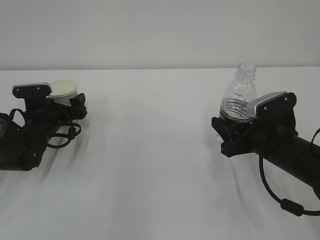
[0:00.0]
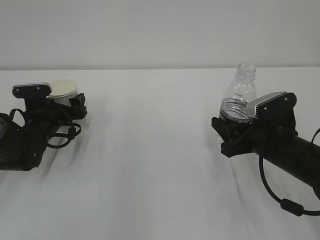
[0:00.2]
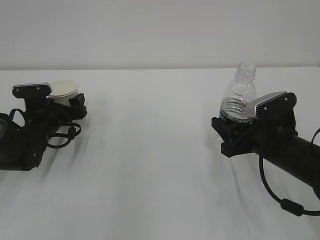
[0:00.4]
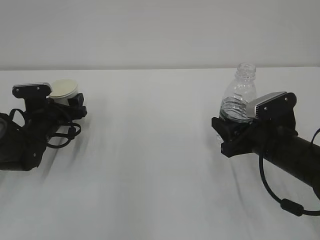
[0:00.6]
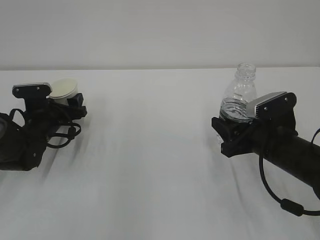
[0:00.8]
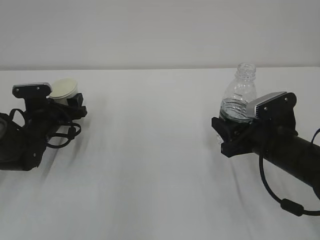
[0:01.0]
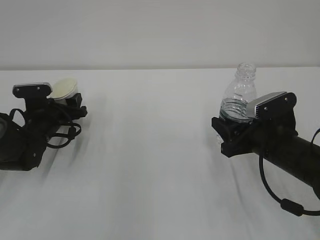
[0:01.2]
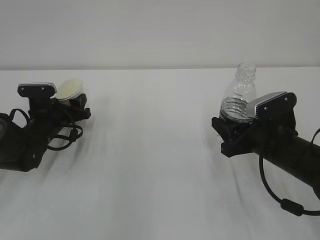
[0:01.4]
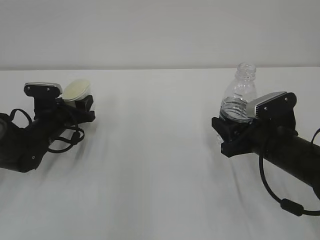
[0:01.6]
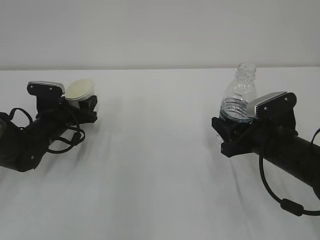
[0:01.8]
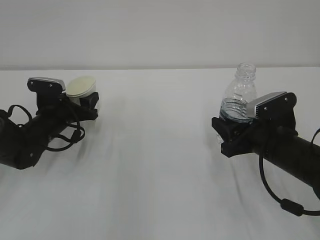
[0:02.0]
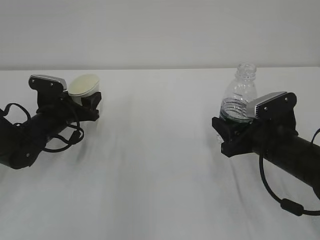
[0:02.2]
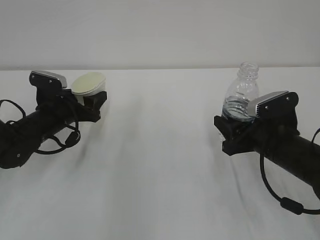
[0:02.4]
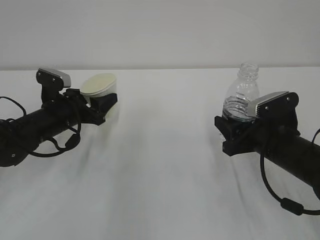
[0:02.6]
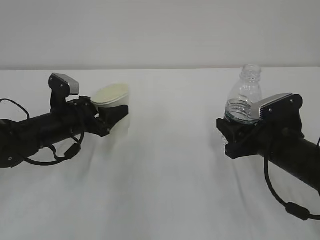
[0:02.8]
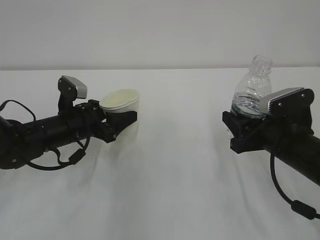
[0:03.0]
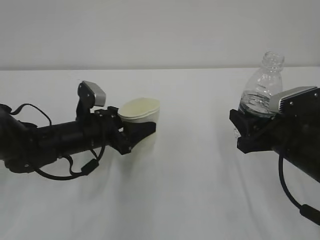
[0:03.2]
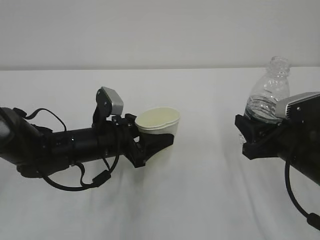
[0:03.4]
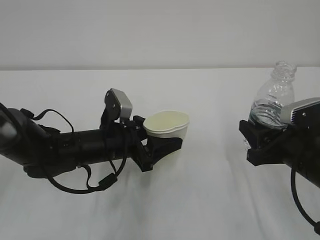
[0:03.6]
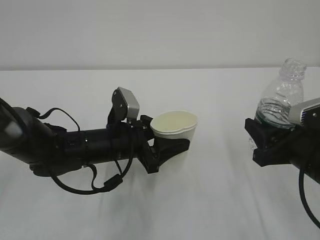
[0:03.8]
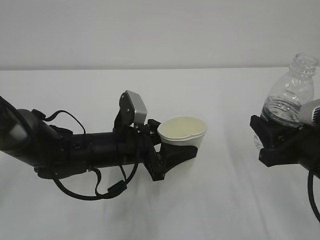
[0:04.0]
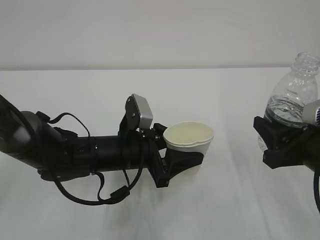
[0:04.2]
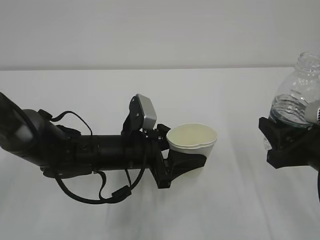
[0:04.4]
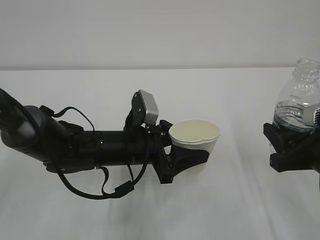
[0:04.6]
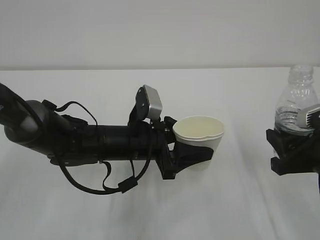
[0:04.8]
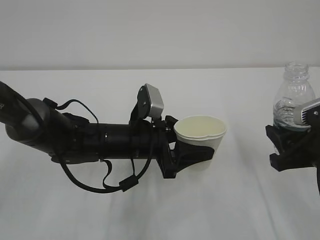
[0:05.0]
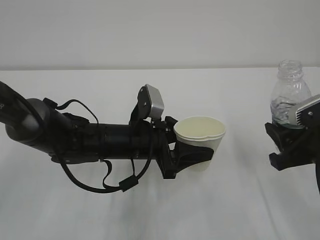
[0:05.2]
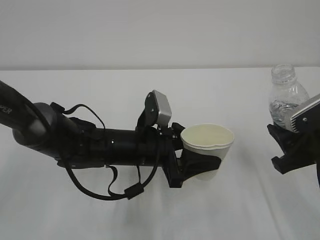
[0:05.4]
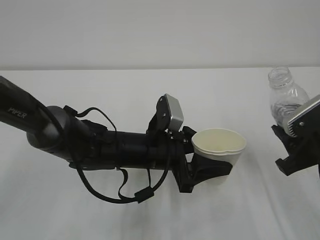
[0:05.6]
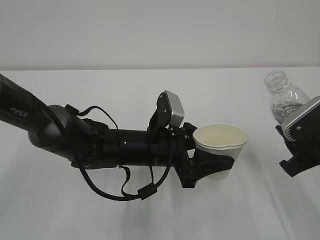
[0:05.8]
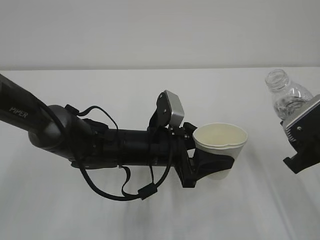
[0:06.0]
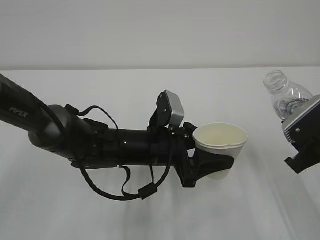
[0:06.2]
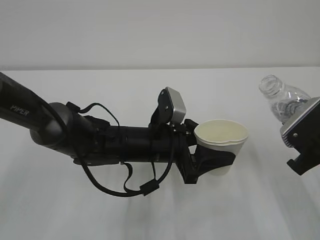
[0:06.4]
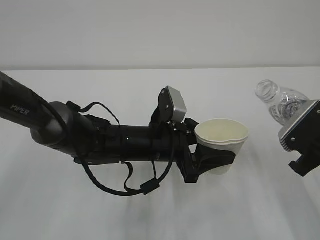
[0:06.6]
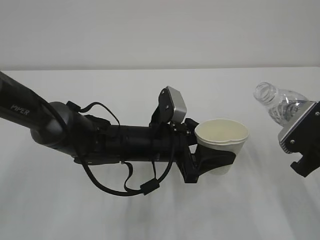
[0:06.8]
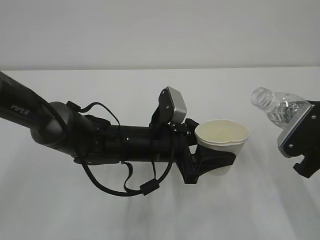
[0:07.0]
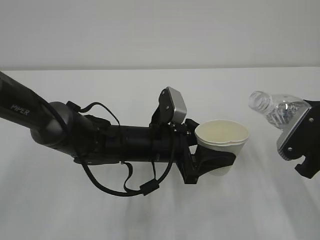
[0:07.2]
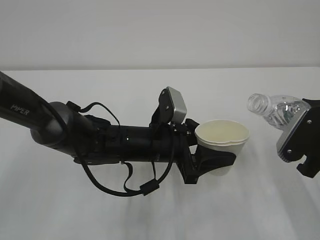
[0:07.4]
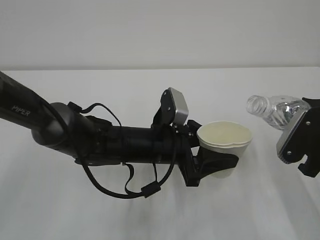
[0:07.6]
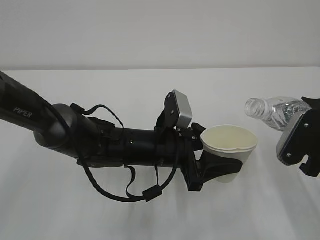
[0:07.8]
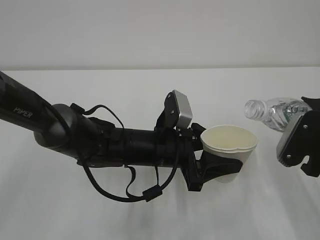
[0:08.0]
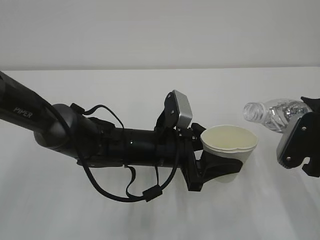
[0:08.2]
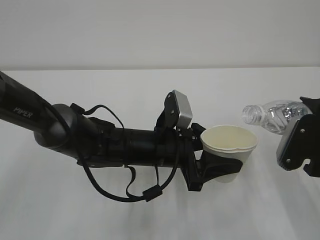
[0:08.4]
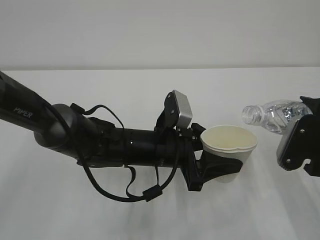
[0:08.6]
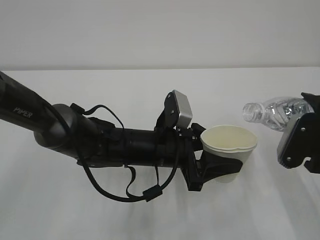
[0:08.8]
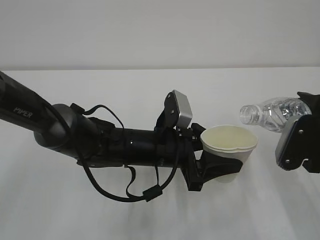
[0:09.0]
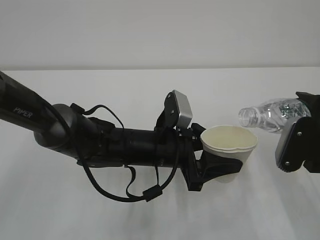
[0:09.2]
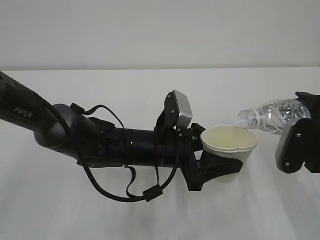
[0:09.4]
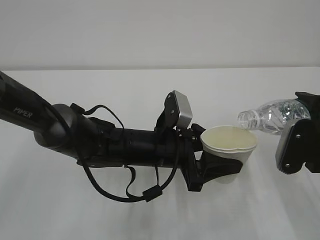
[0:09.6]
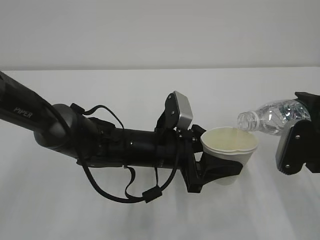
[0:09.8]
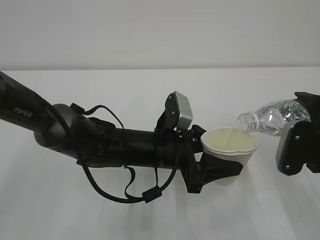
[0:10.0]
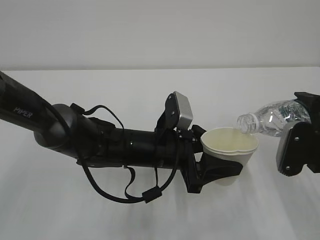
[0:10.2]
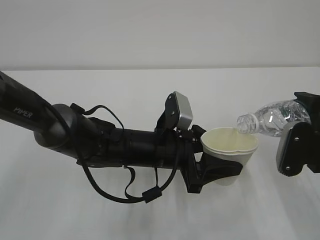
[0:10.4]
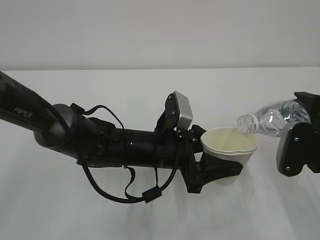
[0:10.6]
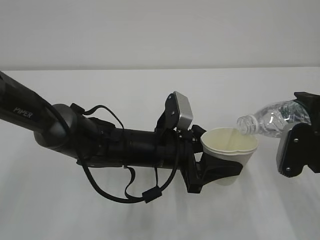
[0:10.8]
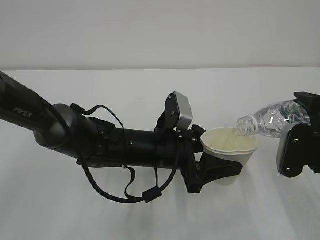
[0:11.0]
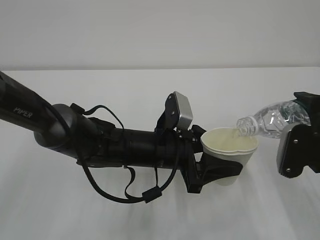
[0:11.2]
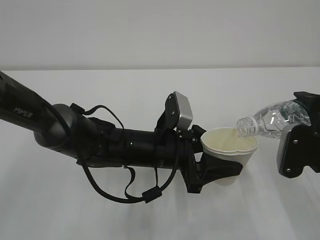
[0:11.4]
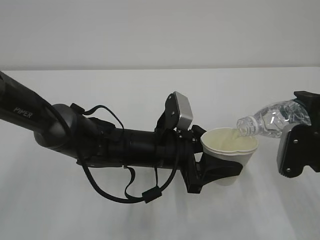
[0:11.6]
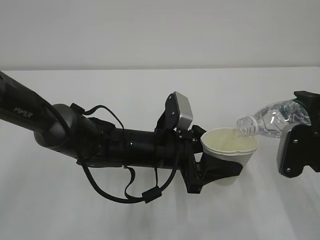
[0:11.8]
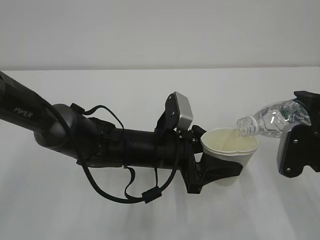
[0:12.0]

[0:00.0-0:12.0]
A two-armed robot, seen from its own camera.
0:00.0 to 0:01.6: The left gripper closes up.
0:01.6 to 0:03.0: The left gripper moves to the right, approximately 5 cm.
0:03.0 to 0:04.4: The left gripper is displaced to the right and backward by roughly 15 cm, while the right gripper is displaced backward by roughly 5 cm.
0:07.6 to 0:10.4: The grippers make only small movements.
0:10.4 to 0:12.0: The two grippers keep their place.

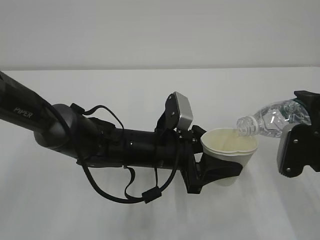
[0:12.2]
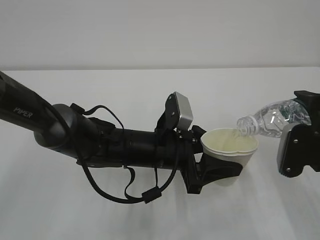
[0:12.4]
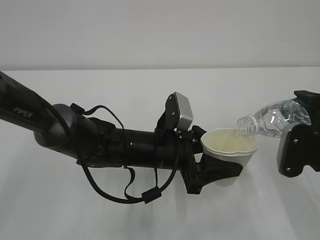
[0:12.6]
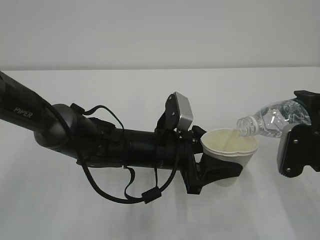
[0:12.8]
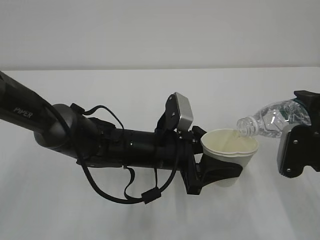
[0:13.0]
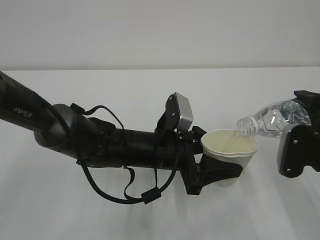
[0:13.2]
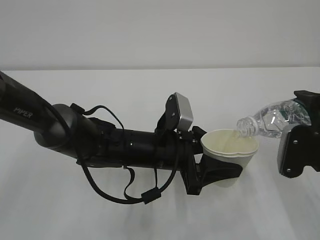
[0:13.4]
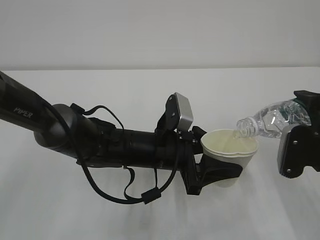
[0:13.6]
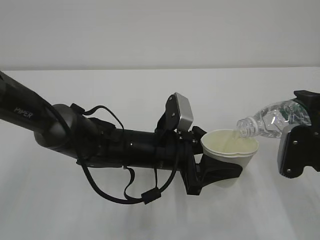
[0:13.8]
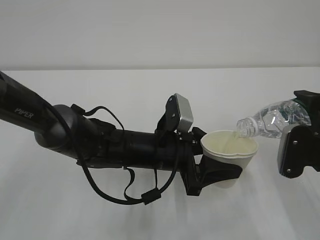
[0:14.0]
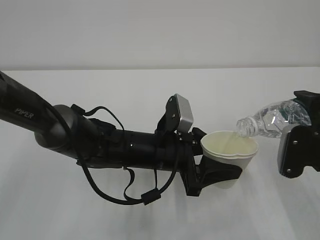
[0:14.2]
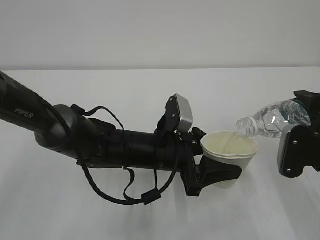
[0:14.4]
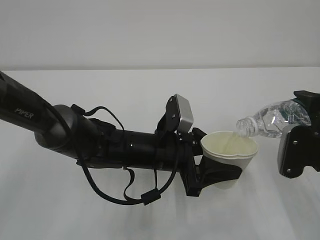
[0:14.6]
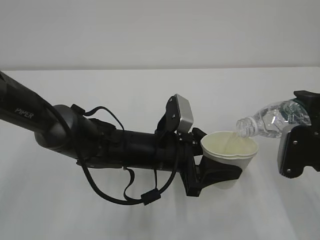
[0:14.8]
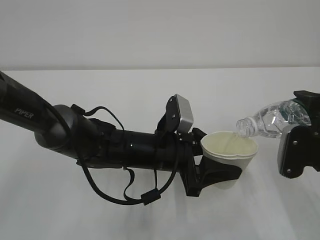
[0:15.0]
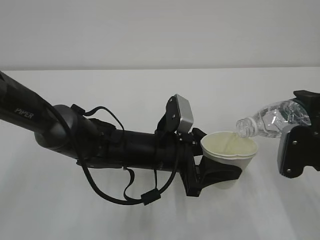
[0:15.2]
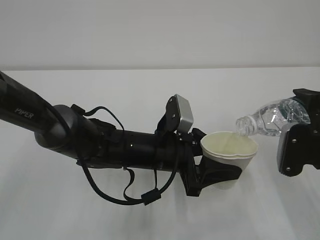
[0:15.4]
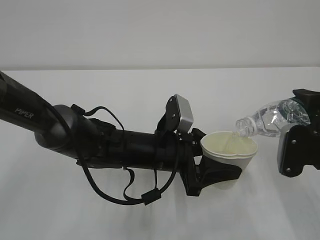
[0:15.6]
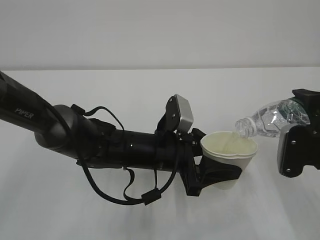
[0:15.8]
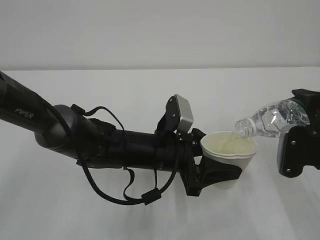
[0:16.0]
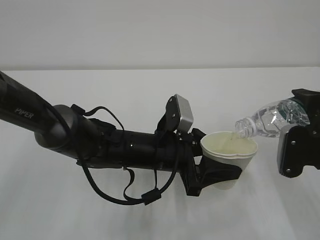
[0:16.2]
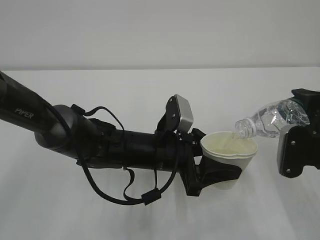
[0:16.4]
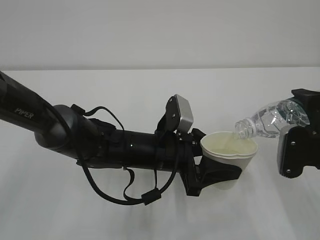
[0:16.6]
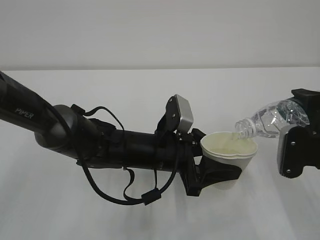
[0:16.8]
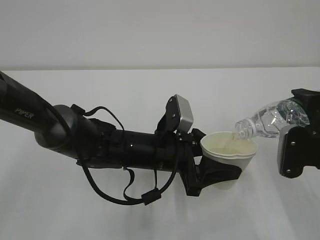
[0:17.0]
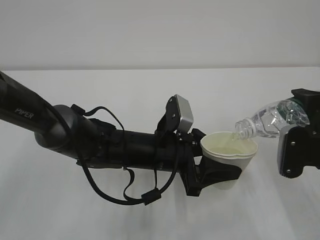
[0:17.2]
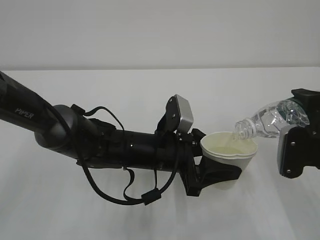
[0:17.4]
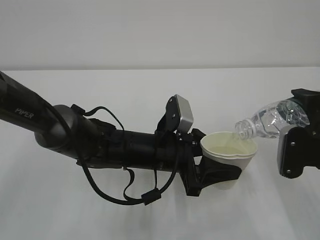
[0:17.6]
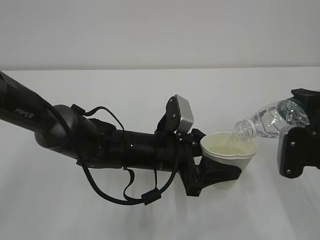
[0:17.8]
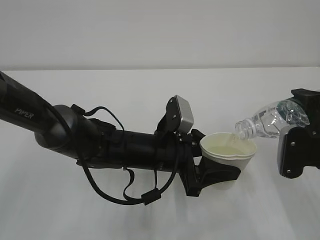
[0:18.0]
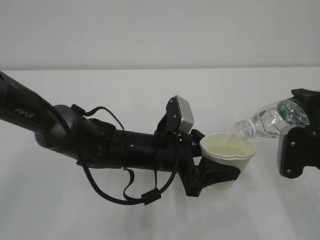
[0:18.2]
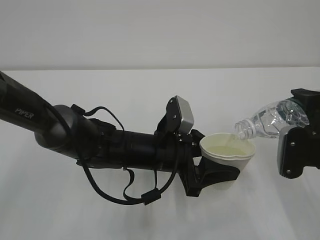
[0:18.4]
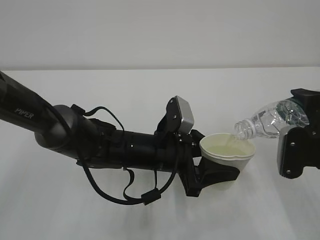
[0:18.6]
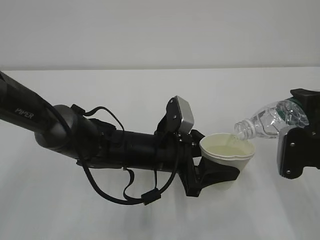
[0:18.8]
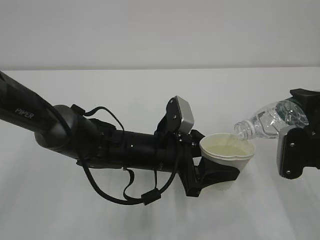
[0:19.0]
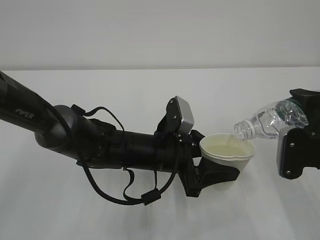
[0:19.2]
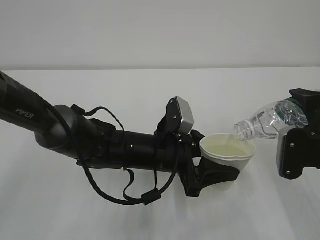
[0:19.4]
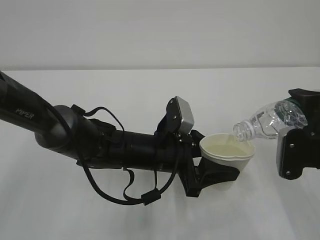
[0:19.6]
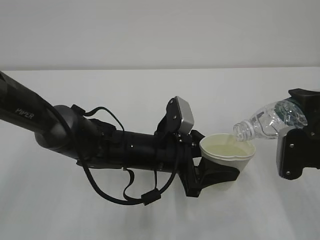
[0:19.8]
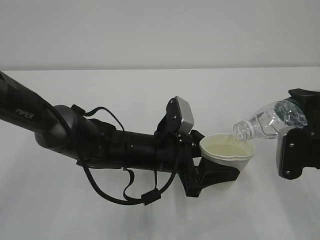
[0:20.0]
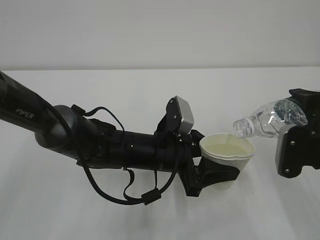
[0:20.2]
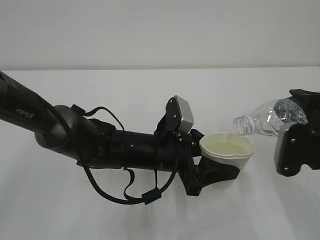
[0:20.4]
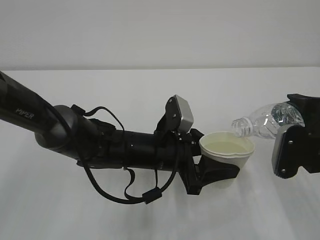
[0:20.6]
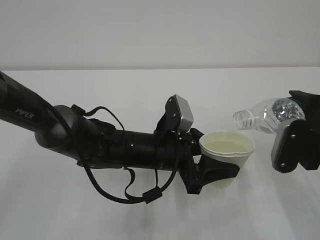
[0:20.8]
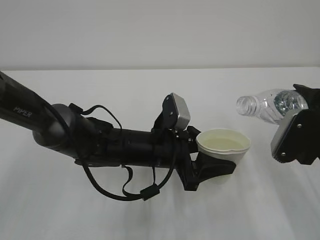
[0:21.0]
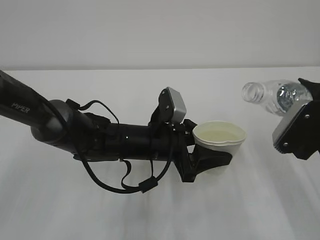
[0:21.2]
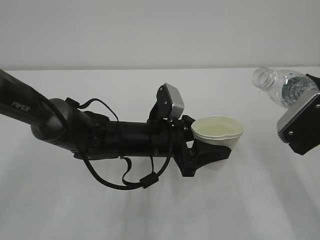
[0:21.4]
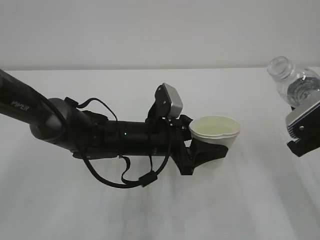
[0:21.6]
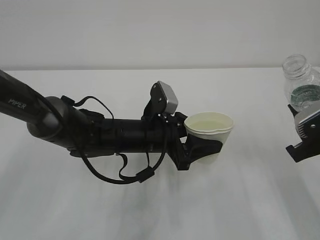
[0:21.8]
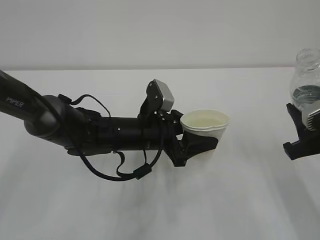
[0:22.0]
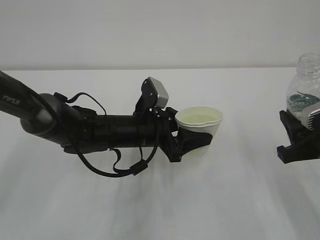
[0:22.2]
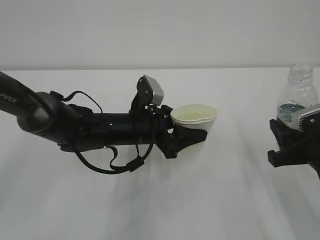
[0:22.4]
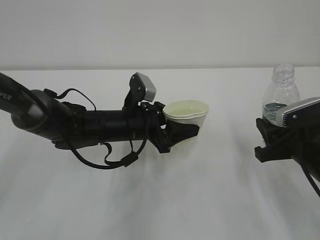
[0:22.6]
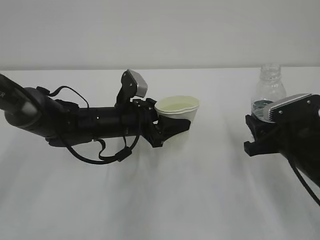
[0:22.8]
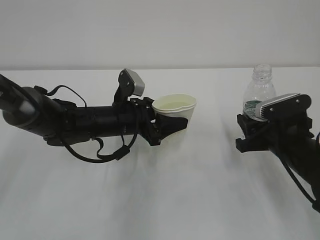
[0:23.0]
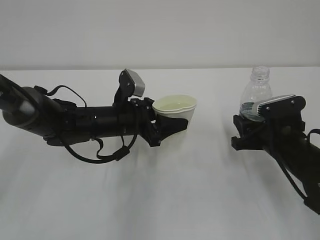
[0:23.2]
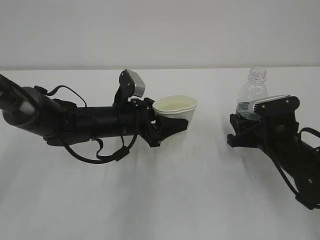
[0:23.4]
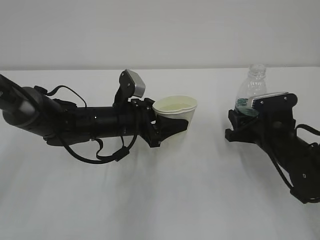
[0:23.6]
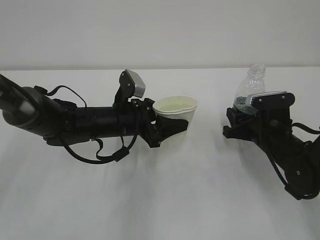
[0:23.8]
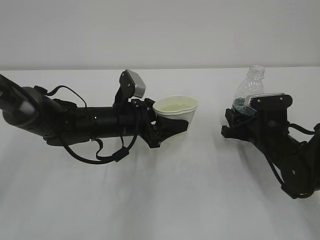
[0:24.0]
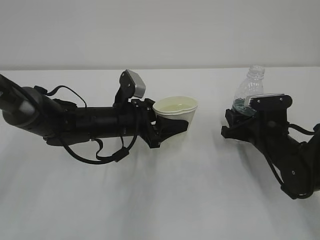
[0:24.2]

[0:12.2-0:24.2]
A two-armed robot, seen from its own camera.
0:12.2 to 0:16.6: Both grippers stay put.
0:16.6 to 0:19.8: Both grippers stay about where they are.
0:21.2 to 0:22.6: The left gripper moves approximately 5 cm. The right gripper goes some 5 cm downward.
0:22.6 to 0:24.2: The right gripper travels forward and downward by roughly 10 cm.
